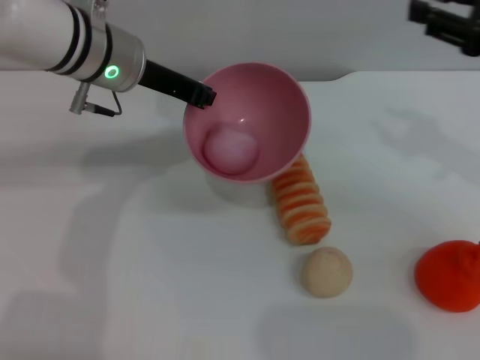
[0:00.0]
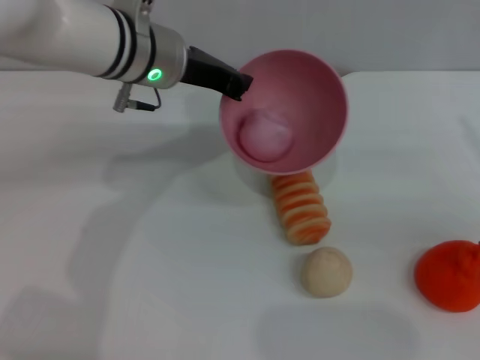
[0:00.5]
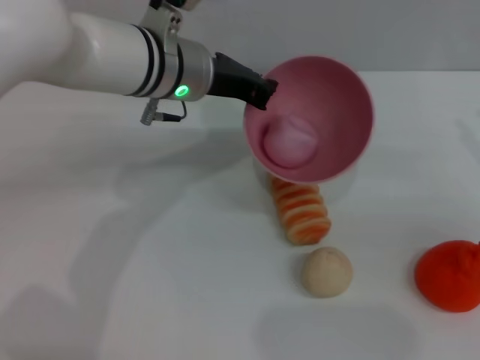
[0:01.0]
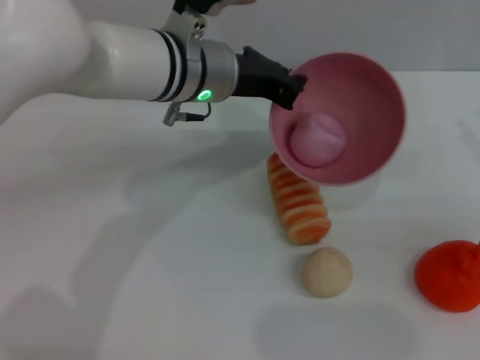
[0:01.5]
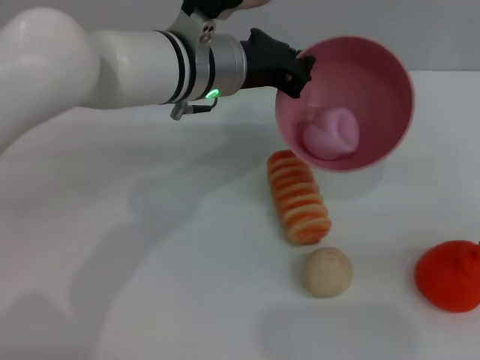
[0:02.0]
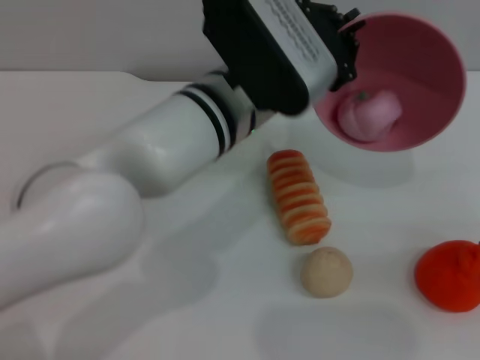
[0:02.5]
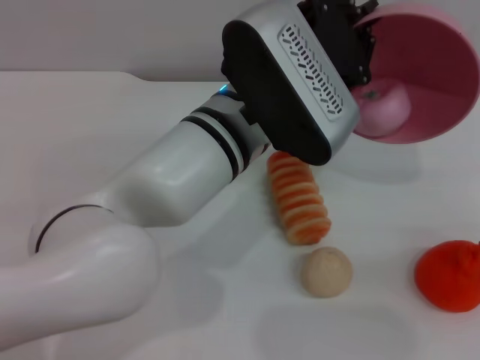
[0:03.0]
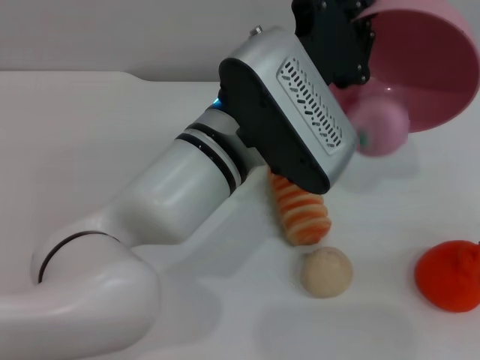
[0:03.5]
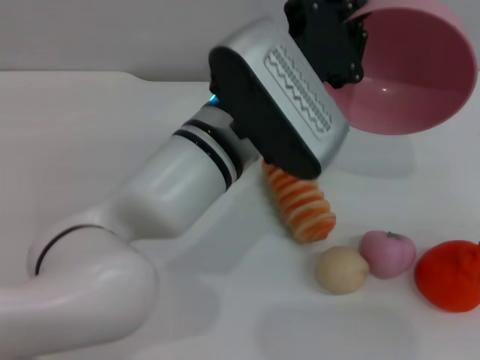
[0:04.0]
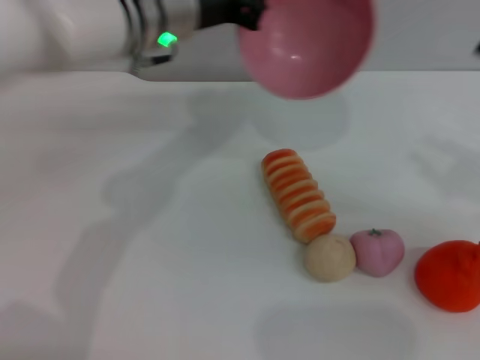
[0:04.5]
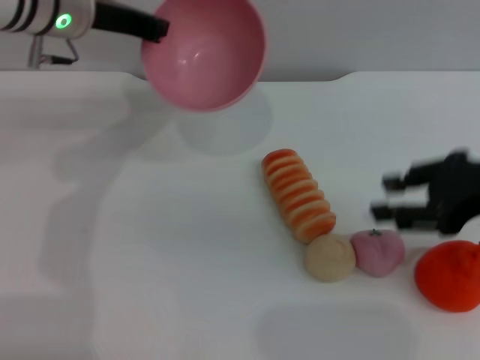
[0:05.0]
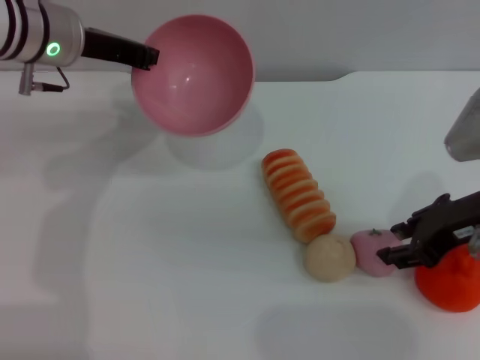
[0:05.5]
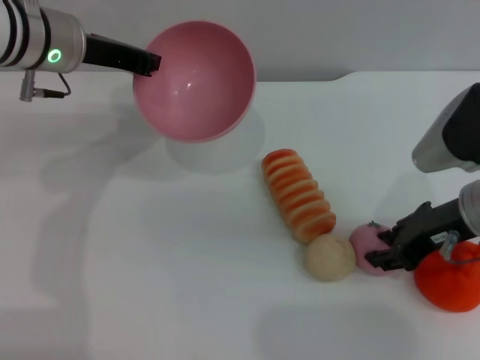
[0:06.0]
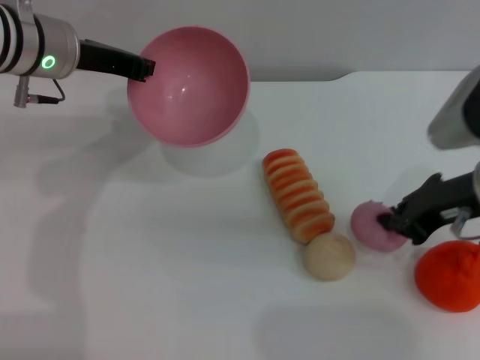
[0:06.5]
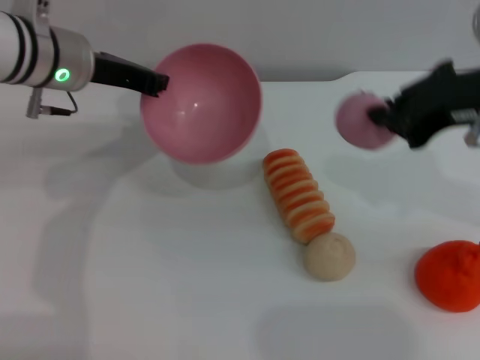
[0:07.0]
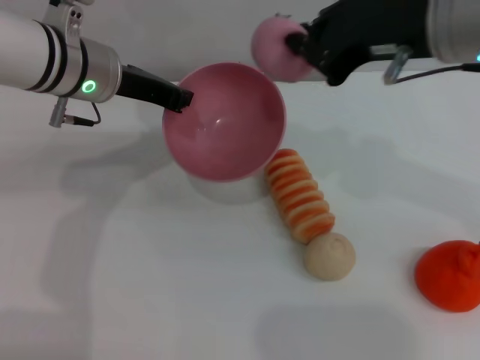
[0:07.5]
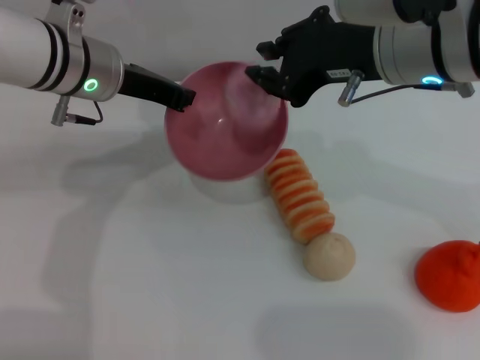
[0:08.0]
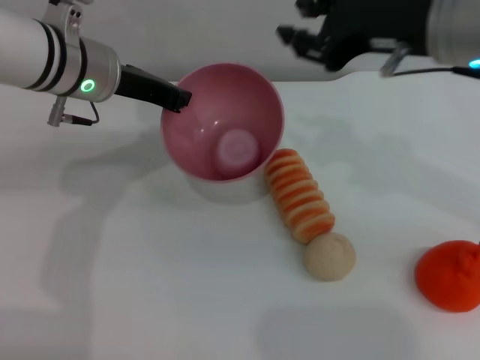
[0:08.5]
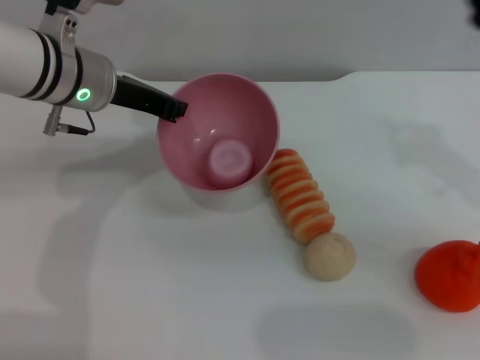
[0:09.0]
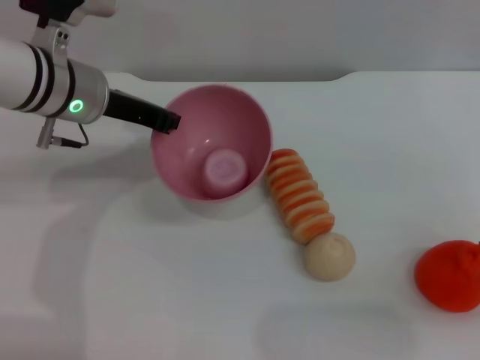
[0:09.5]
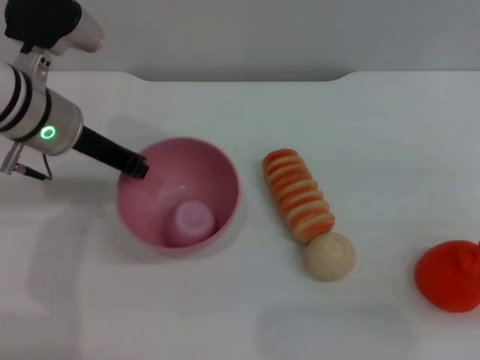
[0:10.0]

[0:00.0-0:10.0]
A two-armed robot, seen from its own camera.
Task of the whole recording: put the peach into the pink bowl and pour it out repeatedly.
Step, 0:00.0 to 0:04.0: Pour the peach out of bowl.
Step, 0:04.5 to 0:06.5: Pick up the peach with the right gripper.
Step, 0:07.0 to 0:08.0: Place the peach into the bowl.
0:00.0 to 0:02.0: The right gripper moves to the right, backward and downward, about 10 cm. The left gripper travels to the right by about 10 cm.
0:02.0 to 0:04.0: The left gripper goes roughly 10 cm backward.
0:04.0 to 0:06.0: The left gripper heads to the left and forward, covering some 20 cm, while the right gripper goes some 15 cm to the left.
0:06.0 to 0:08.0: The right gripper goes roughly 15 cm upward and to the left, and closes its fingers.
0:08.0 to 0:10.0: The right gripper goes some 25 cm to the right and downward, and opens, then closes once more.

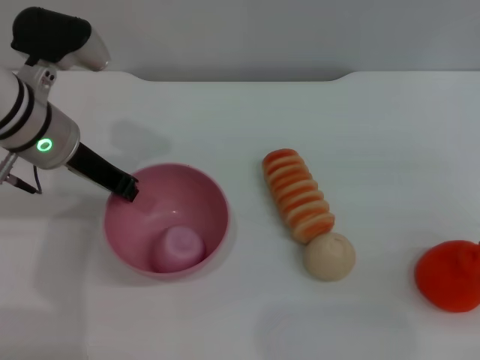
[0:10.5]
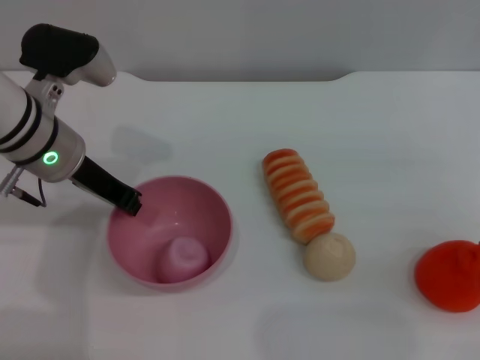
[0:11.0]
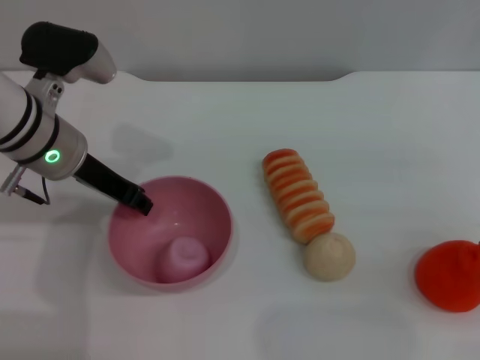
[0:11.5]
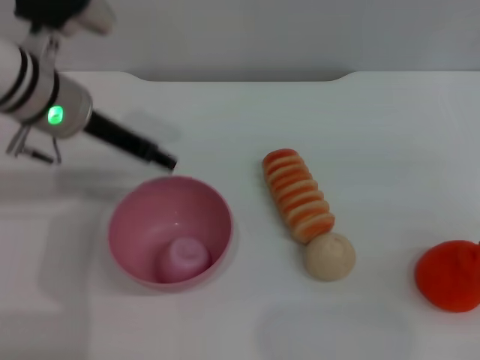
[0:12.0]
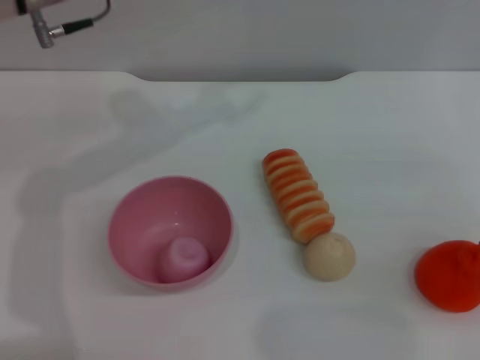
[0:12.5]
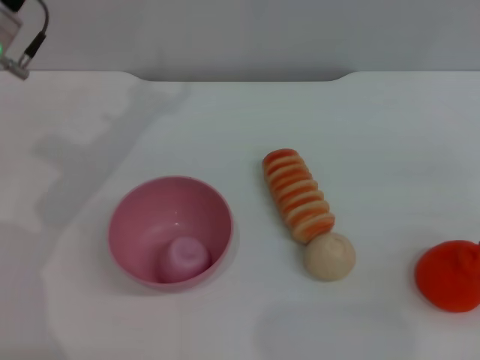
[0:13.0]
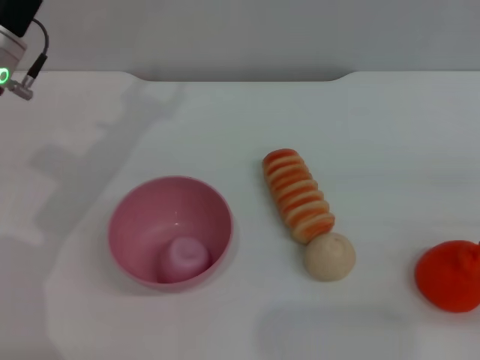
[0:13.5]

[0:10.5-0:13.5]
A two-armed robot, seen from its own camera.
Task of the whole recording: put the peach into the pink bowl and pour it out repeatedly.
0:10.5 to 0:12.0: The left gripper opens.
0:12.0 to 0:13.5: The left gripper travels upward and back again, about 5 cm each way.
